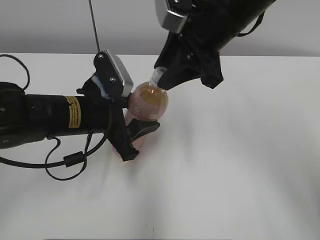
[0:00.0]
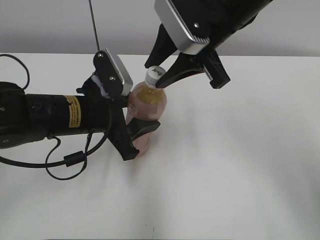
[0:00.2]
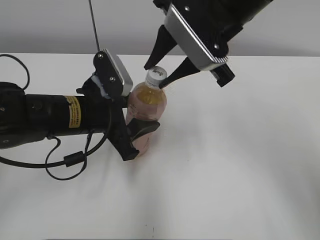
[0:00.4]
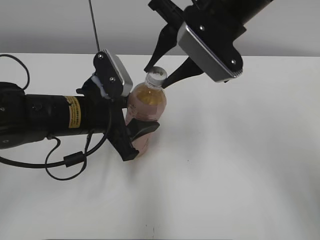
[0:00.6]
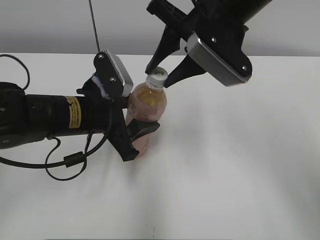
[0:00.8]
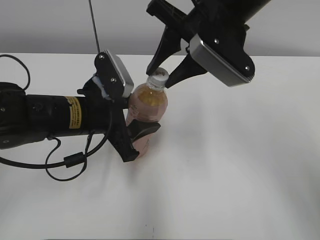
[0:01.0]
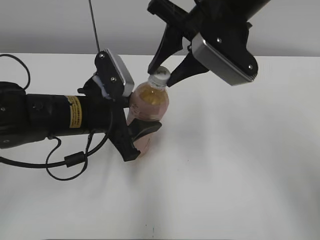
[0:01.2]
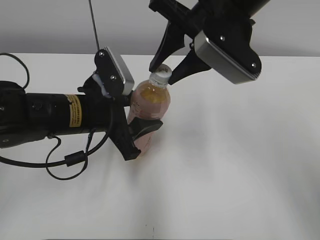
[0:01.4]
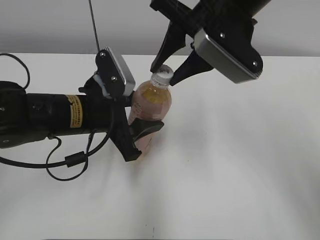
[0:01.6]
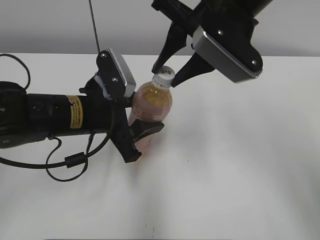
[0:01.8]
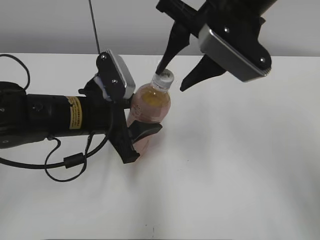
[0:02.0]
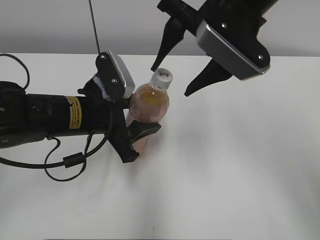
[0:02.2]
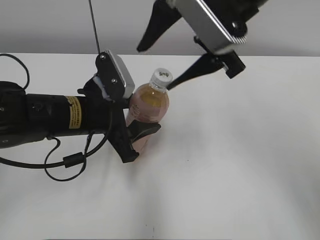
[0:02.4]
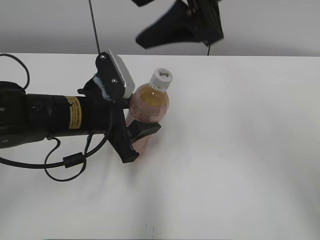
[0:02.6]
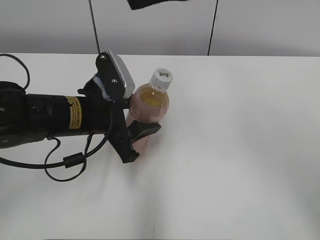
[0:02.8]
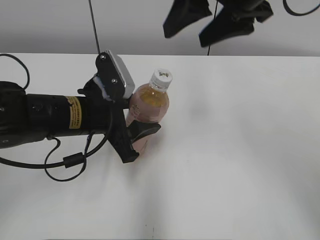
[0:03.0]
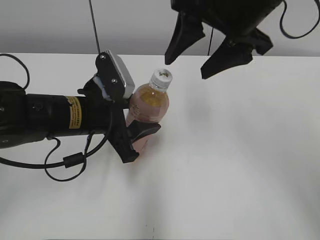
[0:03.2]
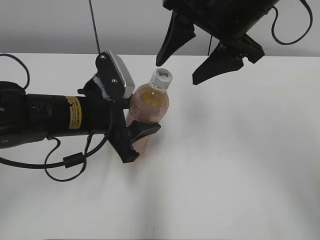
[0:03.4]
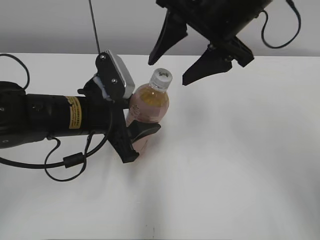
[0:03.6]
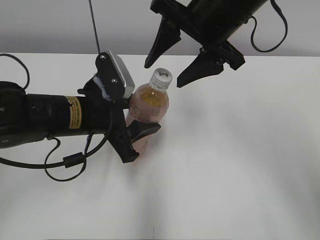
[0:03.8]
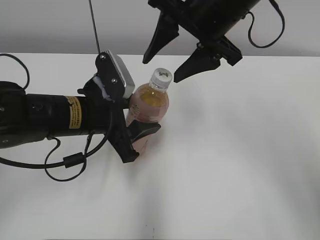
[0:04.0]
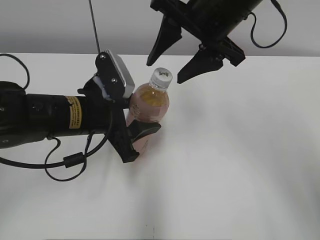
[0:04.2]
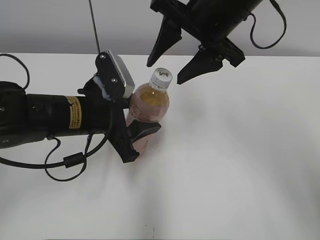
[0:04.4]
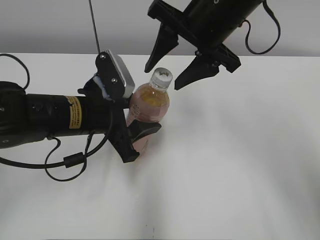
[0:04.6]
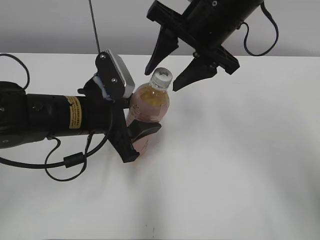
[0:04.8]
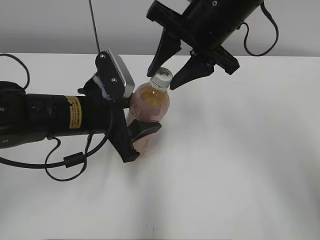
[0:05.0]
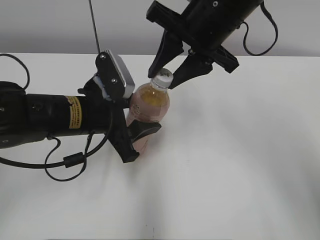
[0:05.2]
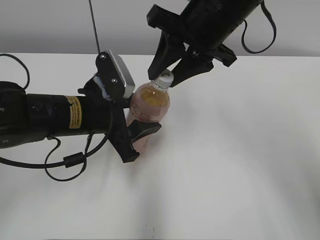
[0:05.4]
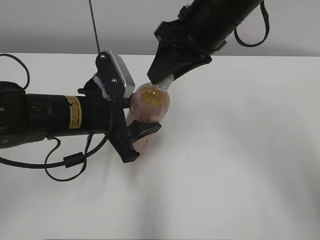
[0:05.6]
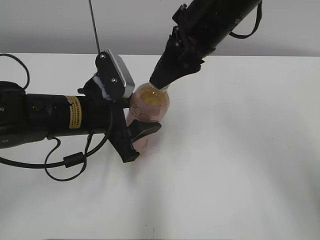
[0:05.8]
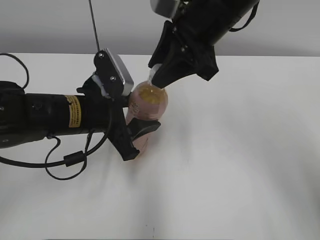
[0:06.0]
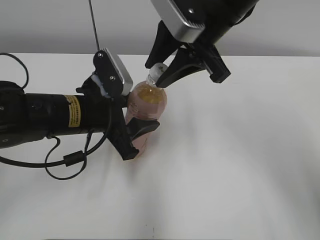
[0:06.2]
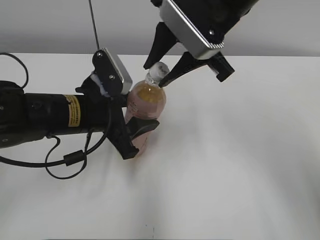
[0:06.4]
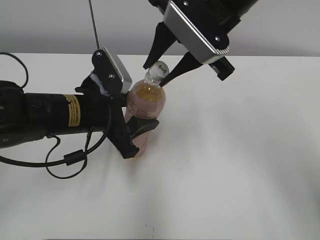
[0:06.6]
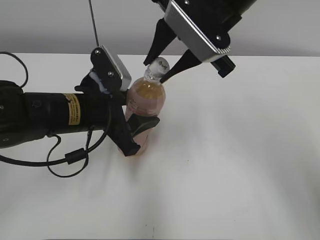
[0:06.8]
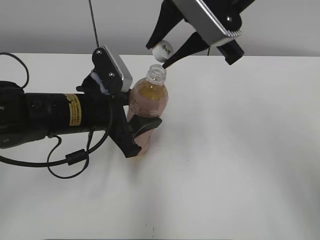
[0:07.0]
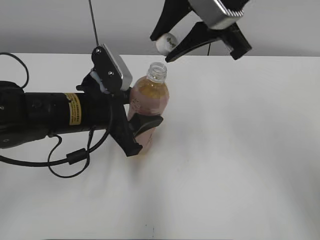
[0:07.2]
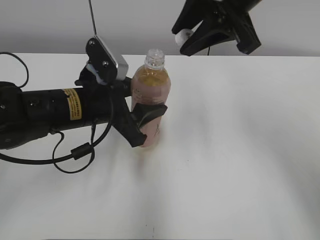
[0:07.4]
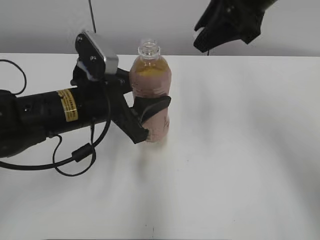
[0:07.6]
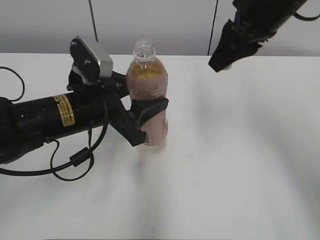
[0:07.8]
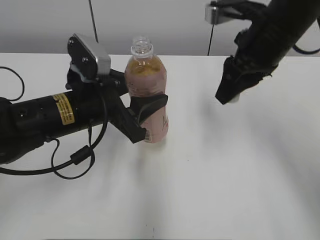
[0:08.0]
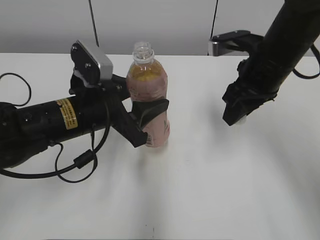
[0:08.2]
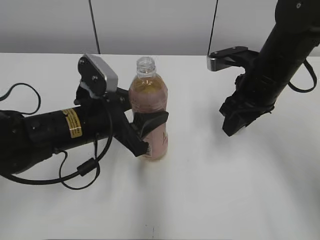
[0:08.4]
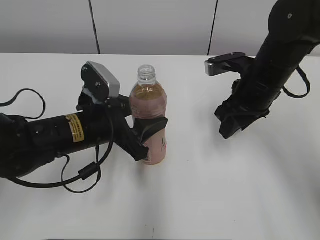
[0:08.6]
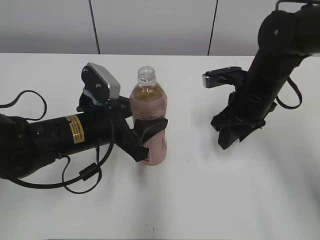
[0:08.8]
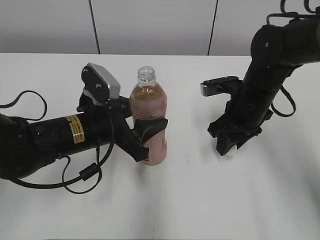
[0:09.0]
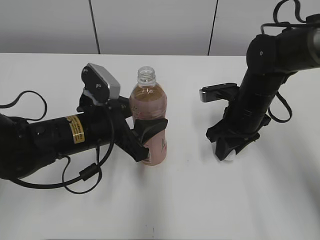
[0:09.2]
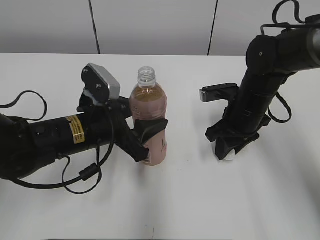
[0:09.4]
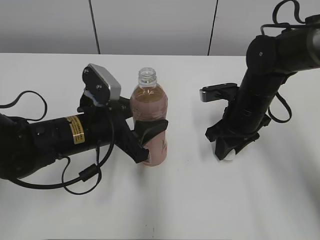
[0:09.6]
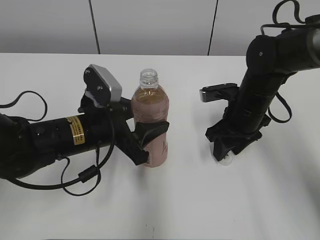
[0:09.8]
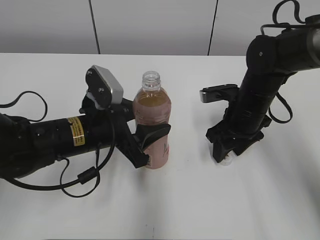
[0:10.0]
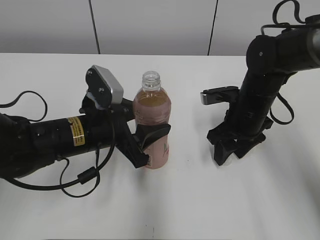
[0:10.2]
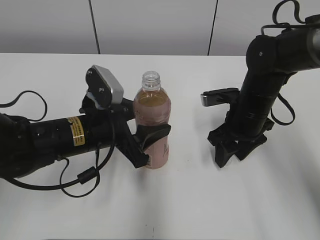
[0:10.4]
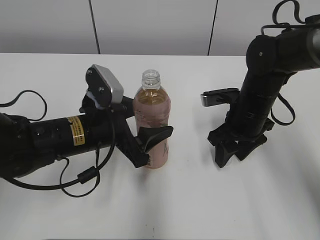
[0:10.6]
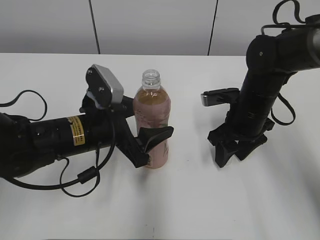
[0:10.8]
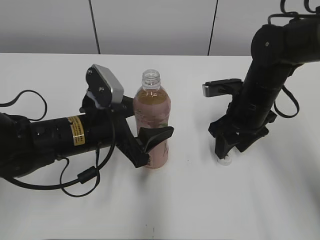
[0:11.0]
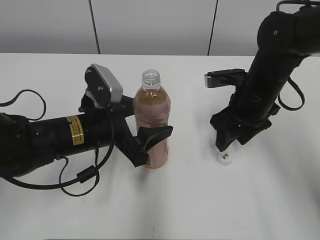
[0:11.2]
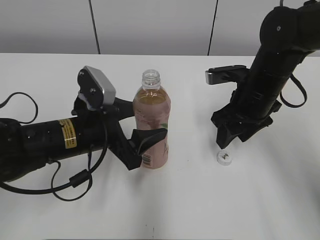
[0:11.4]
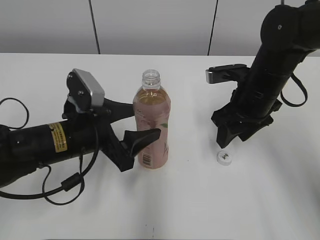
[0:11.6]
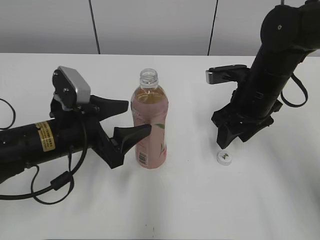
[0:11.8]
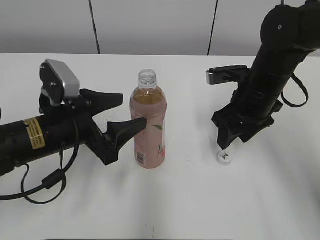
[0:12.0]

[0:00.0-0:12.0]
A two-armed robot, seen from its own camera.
Step, 0:07.0 to 0:09.8: Place the bottle cap on the right.
Step, 0:10.2 to 0:10.8: Place the Peach Oolong Tea with the left hand.
0:01.6 to 0:03.0: The right gripper ends up some 5 cm from where it was, and opens its fingers.
0:03.0 to 0:04.4: The right gripper ends up about 5 cm from where it was.
0:04.4 to 0:06.0: The right gripper closes.
0:06.0 to 0:07.6: The right gripper moves to the right, about 5 cm.
0:07.6 to 0:09.0: The right gripper goes some 20 cm downward.
0:09.0 to 0:10.4: The right gripper opens.
0:10.4 to 0:12.0: The left gripper changes place by about 5 cm.

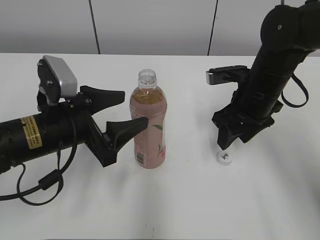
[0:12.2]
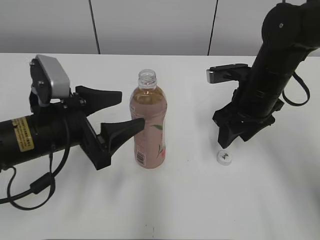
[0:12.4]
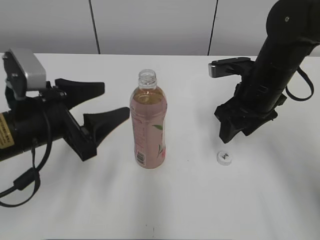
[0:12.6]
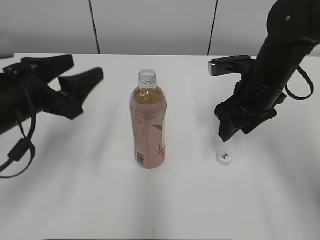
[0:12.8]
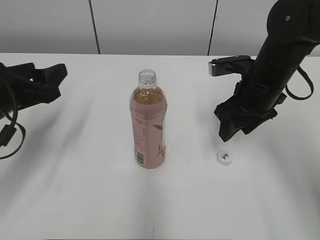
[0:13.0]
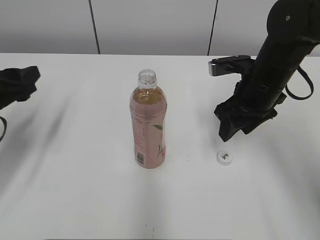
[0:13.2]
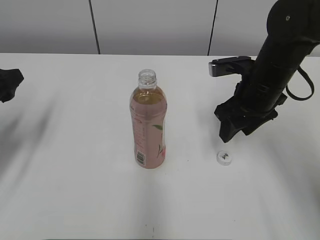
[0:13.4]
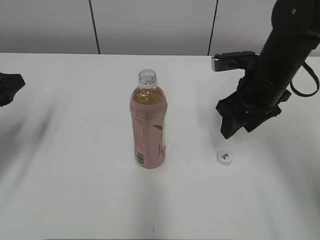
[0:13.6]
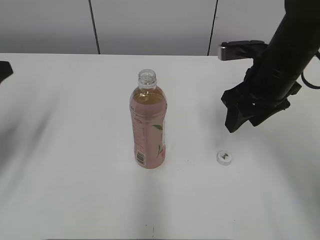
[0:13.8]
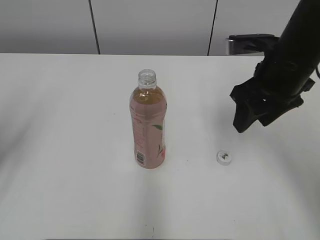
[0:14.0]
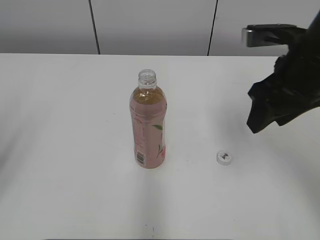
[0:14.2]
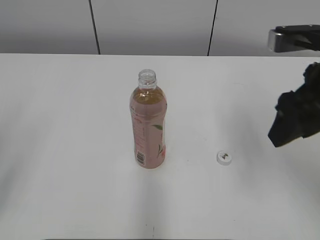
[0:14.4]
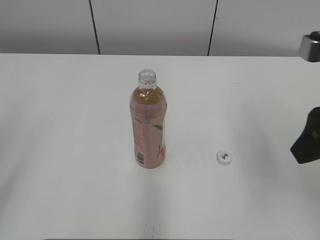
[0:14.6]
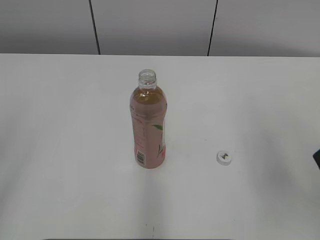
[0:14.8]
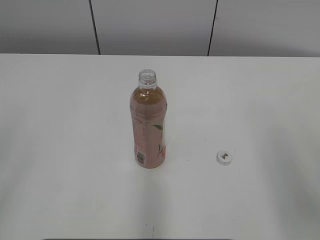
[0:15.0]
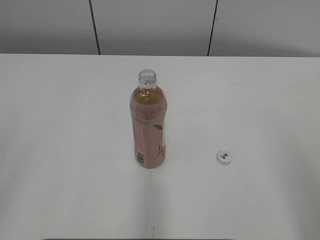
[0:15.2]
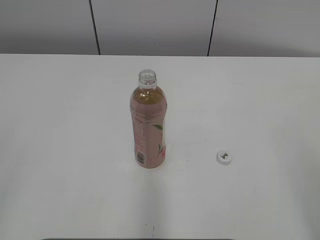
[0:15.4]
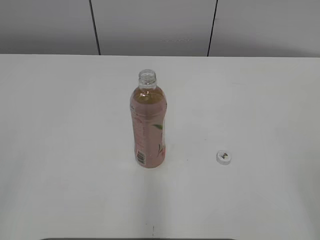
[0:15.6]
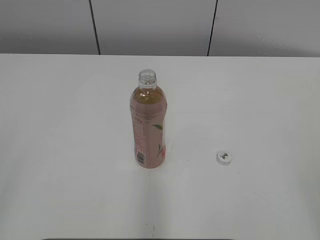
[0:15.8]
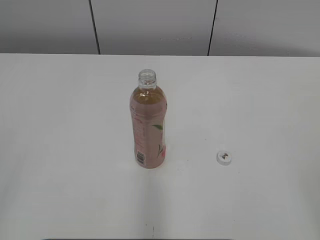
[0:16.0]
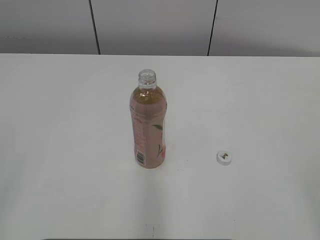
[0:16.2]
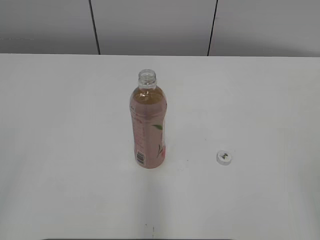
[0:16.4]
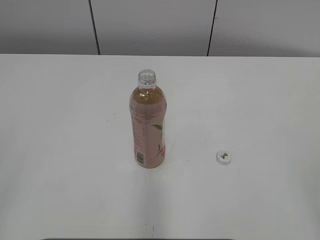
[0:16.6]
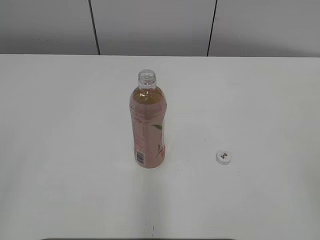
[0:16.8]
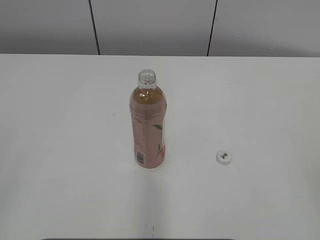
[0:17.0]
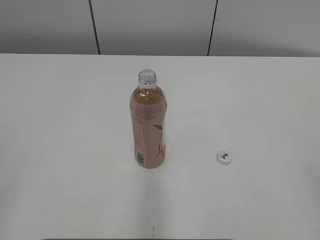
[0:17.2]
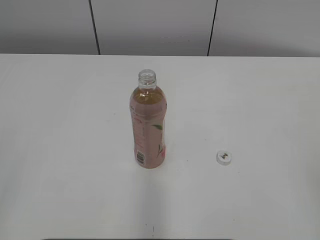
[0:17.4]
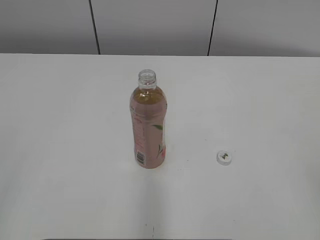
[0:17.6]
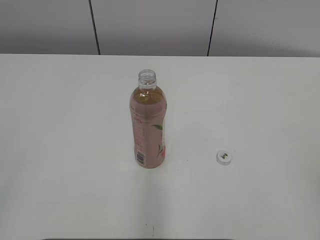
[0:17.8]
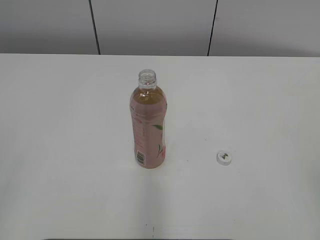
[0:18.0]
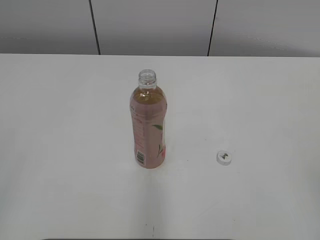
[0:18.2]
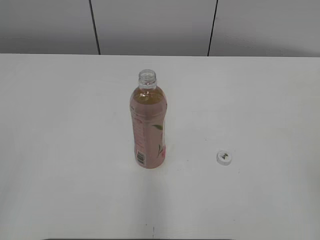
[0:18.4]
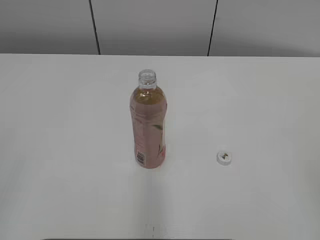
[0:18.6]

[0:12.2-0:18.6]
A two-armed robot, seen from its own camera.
0:12.2 to 0:13.8: The left gripper goes roughly 15 cm to the left and upward, while the right gripper heads upward, covering some 5 cm.
0:13.8 to 0:15.4: The left gripper moves backward, roughly 25 cm. Meanwhile the right gripper shifts roughly 30 cm backward and to the right.
0:17.0 to 0:18.6: The two grippers keep their place.
